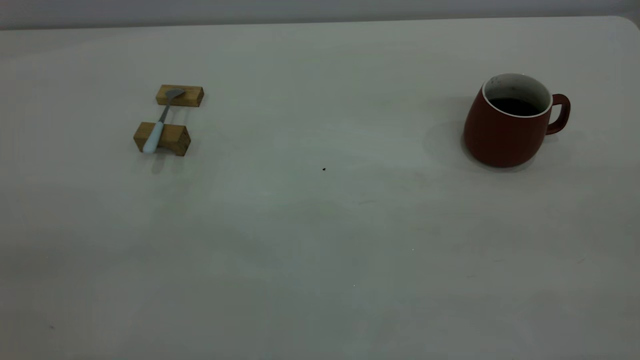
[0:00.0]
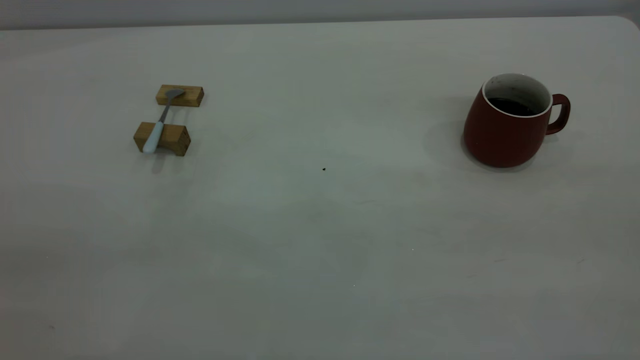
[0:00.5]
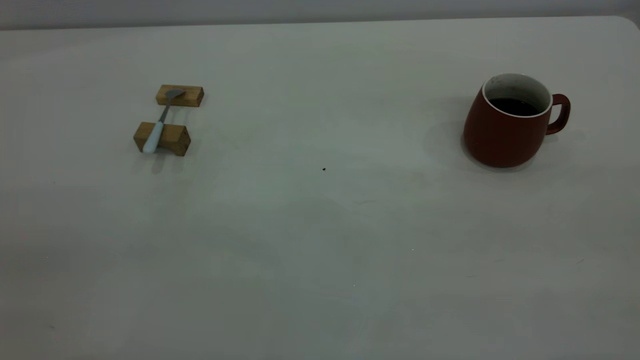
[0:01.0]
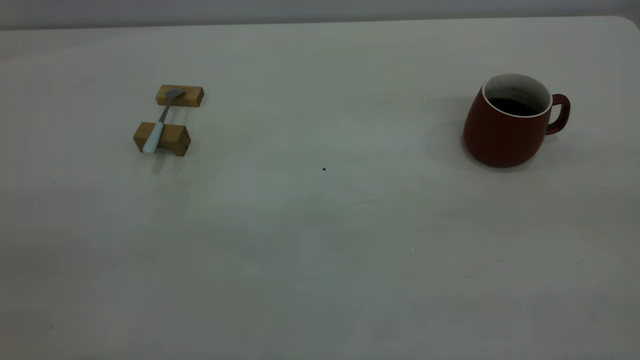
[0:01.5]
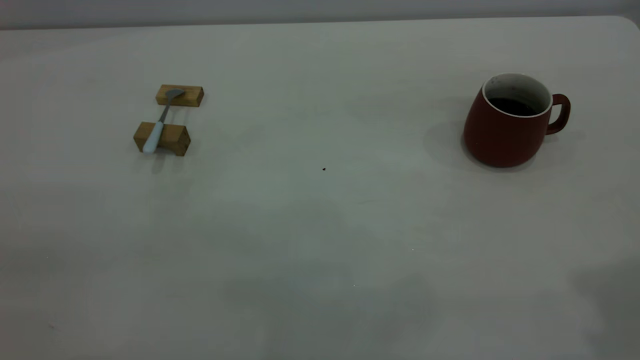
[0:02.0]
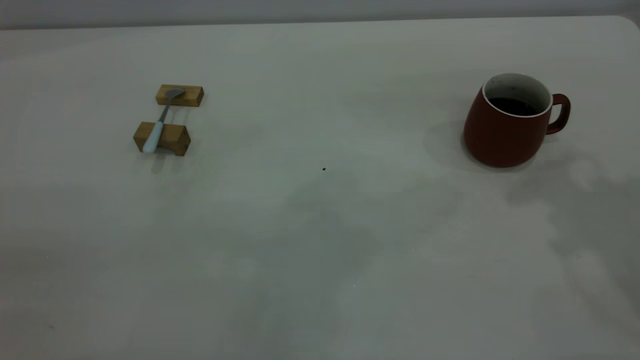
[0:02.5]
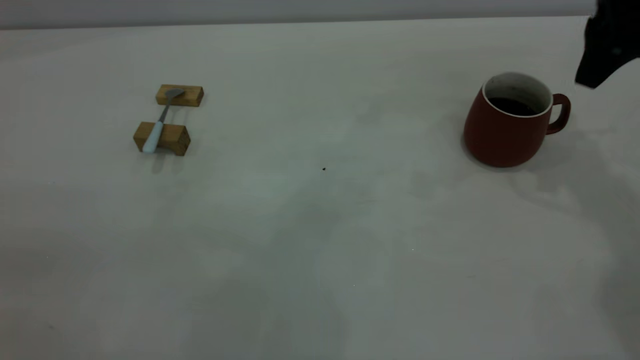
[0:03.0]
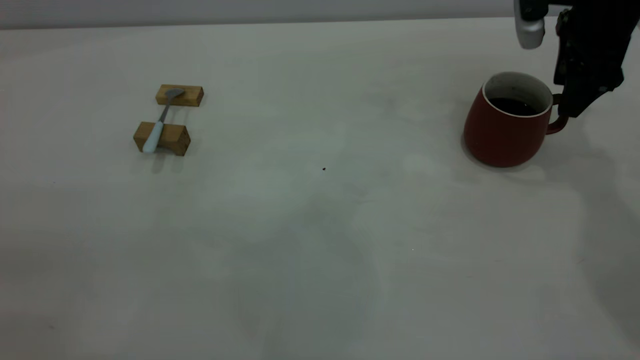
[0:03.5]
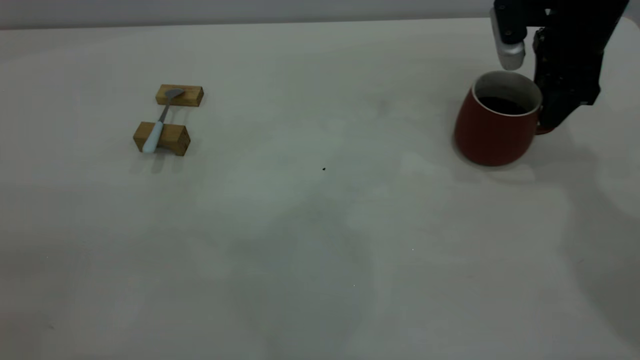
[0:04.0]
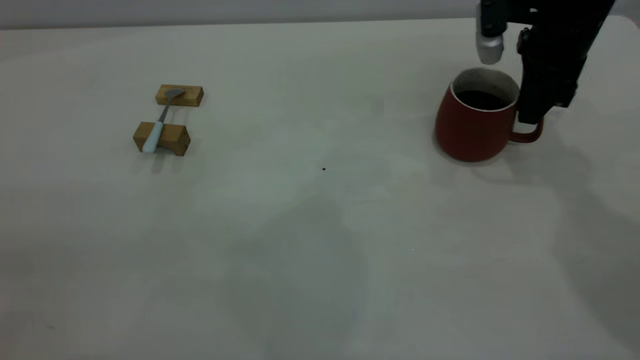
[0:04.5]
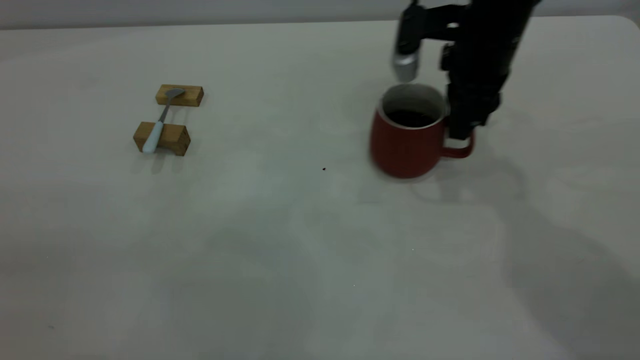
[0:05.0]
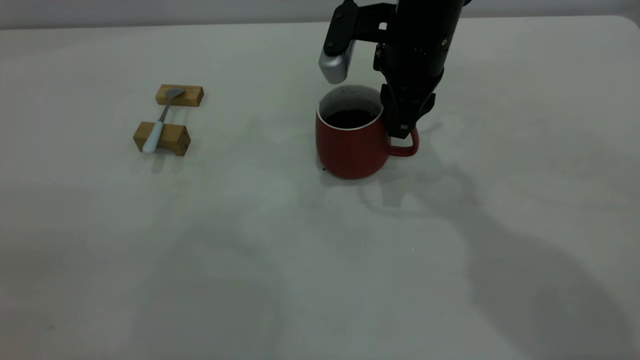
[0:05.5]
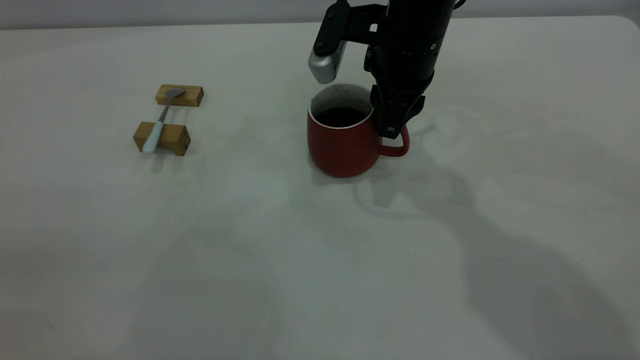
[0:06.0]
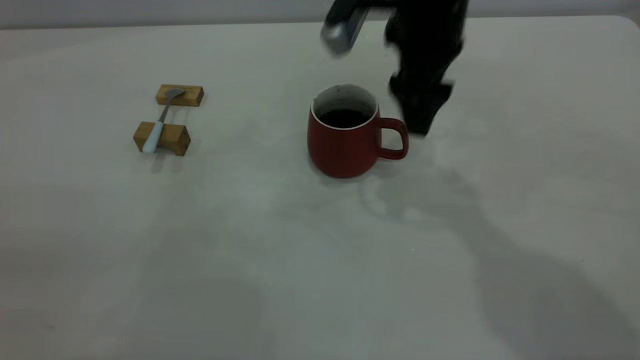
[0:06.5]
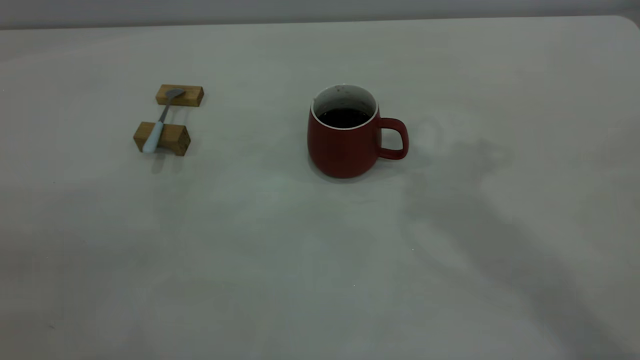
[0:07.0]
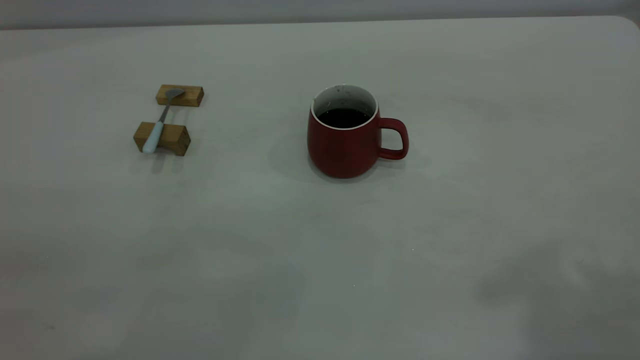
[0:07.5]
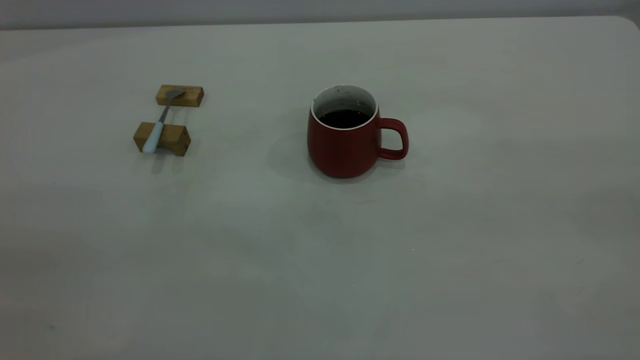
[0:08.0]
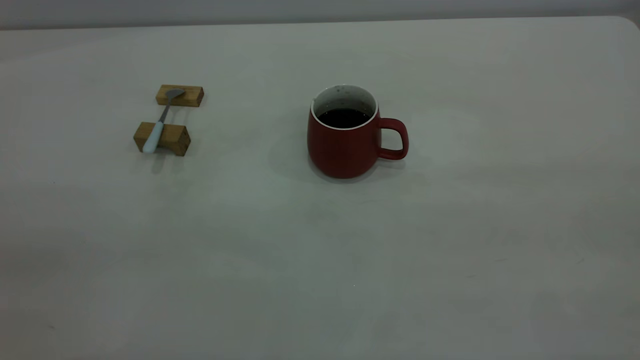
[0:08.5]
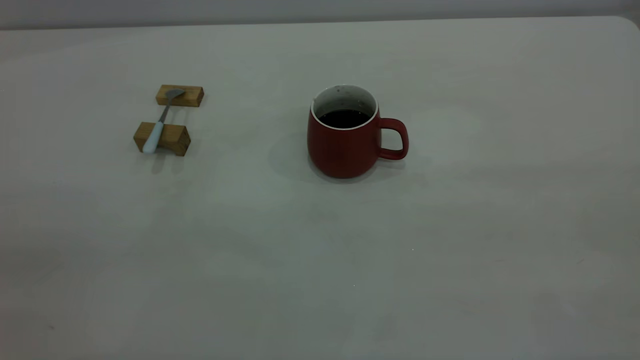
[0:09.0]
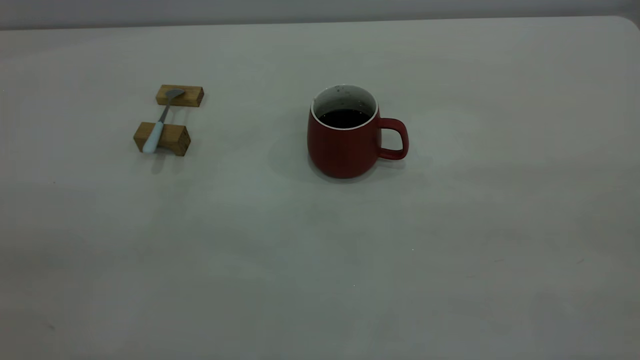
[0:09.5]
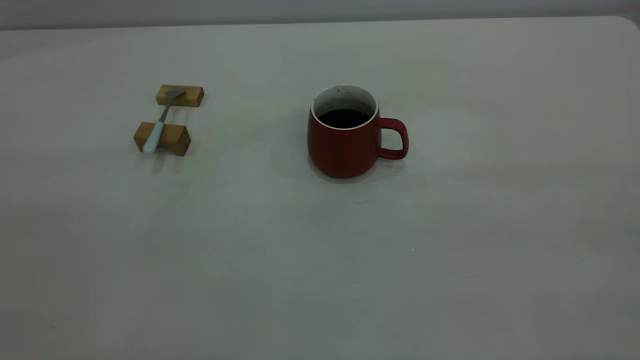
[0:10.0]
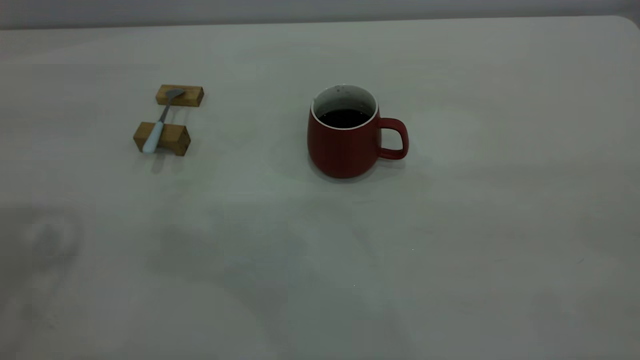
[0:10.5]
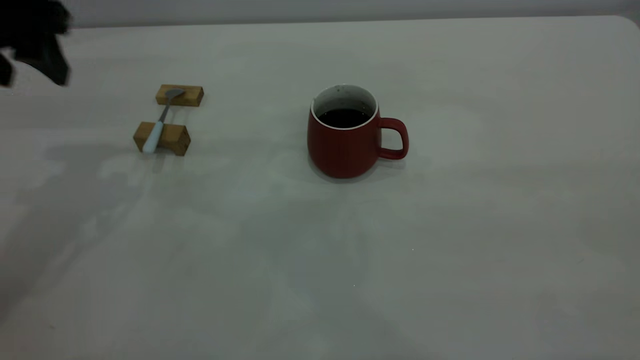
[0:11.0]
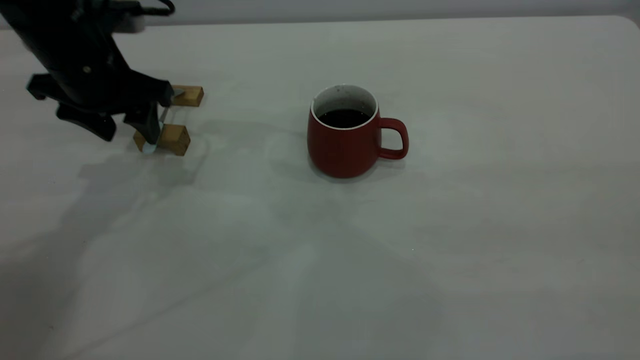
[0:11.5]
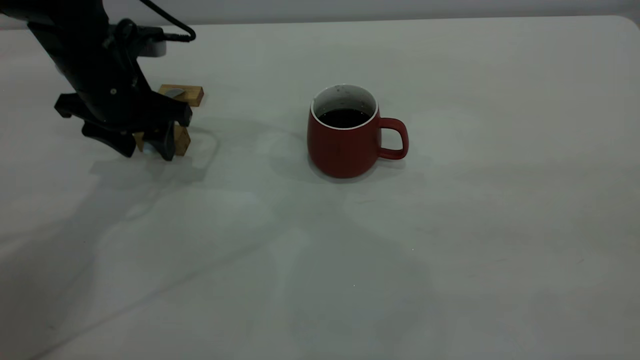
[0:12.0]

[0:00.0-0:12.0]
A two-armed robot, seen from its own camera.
Step, 0:00.0 to 0:06.5: Move the cup with coffee to the center of view.
0:02.0 to 0:04.0: The right gripper is displaced forward and downward by roughly 35 cm.
0:04.0 to 0:06.0: The right gripper travels to the left by some 20 cm, and closes its fingers.
0:06.0 to 0:08.0: The right gripper shifts about 50 cm backward, upward and to the right, and opens its fingers.
0:10.0 to 0:12.0: The left gripper shifts about 40 cm forward and downward.

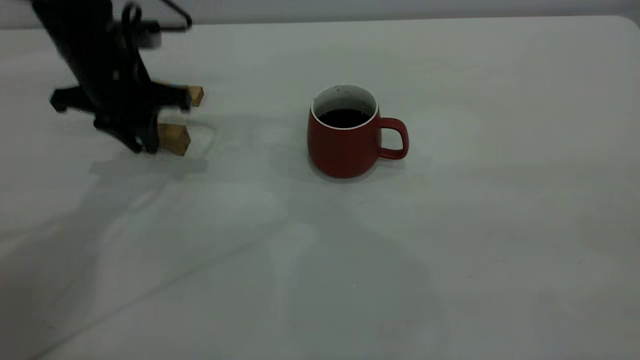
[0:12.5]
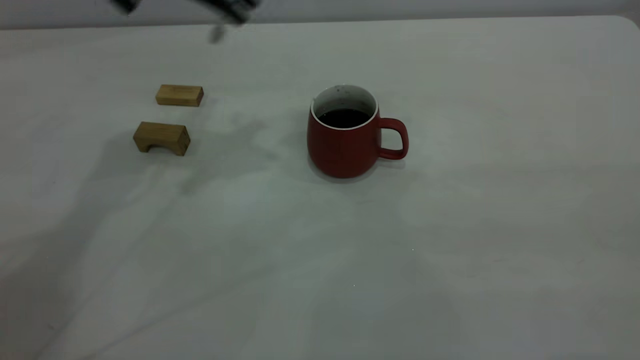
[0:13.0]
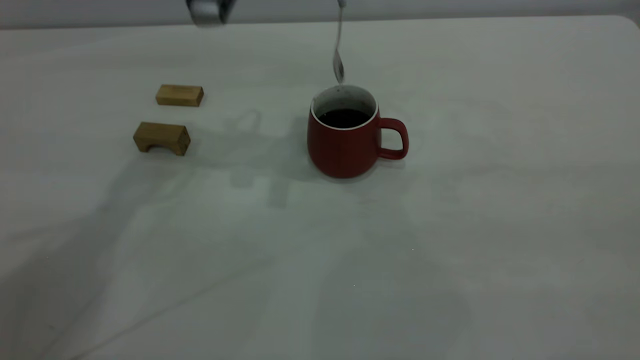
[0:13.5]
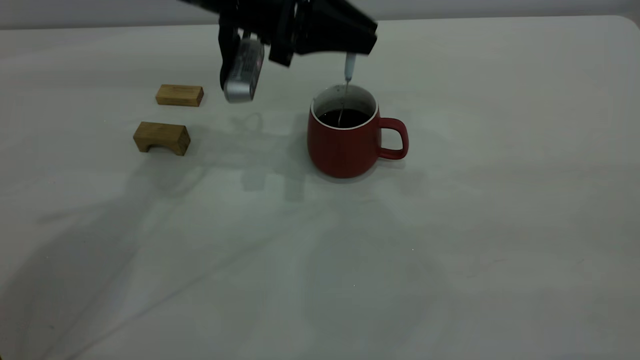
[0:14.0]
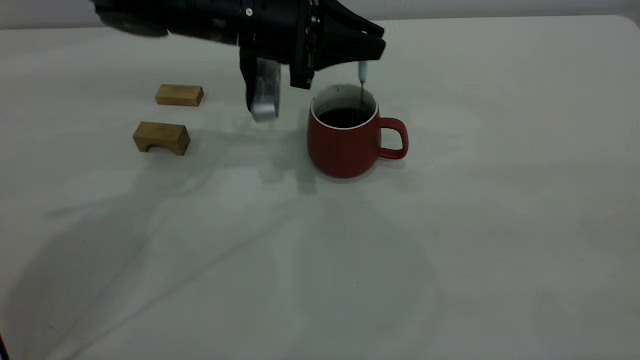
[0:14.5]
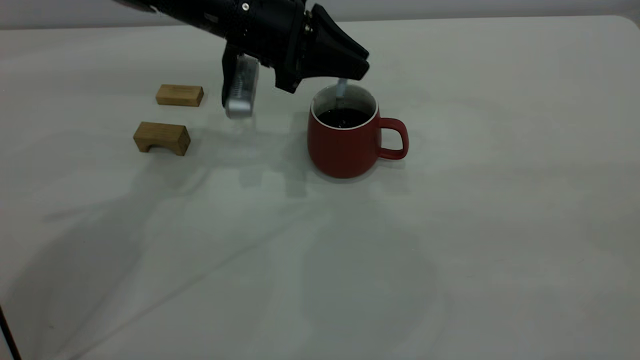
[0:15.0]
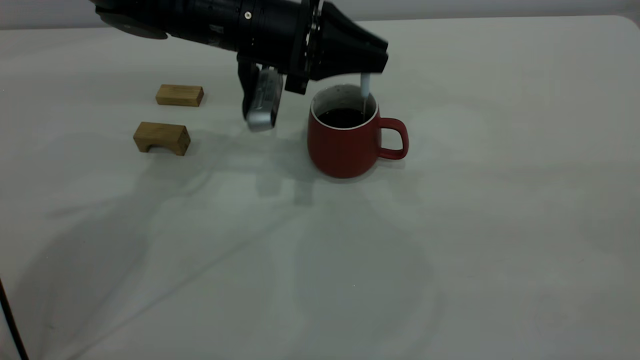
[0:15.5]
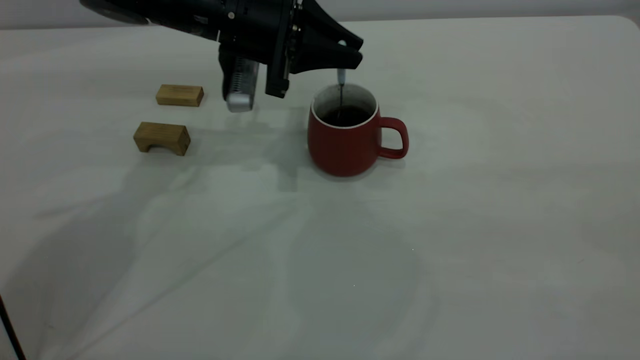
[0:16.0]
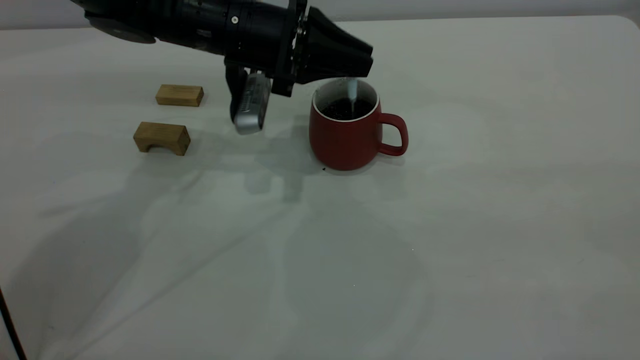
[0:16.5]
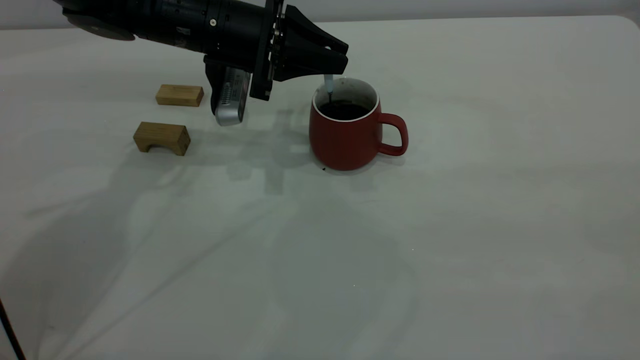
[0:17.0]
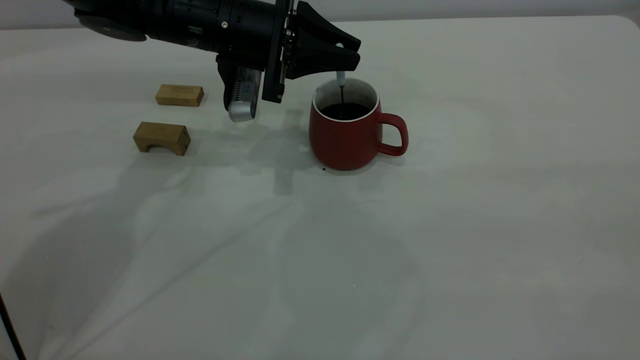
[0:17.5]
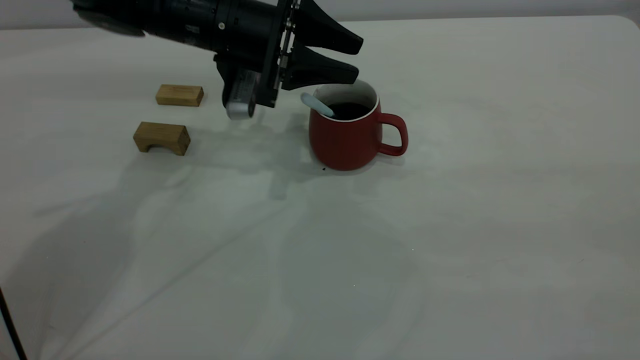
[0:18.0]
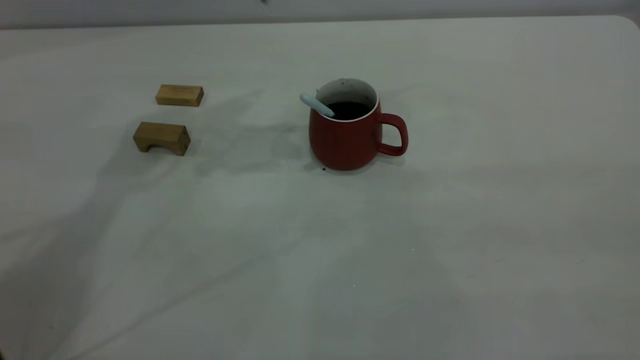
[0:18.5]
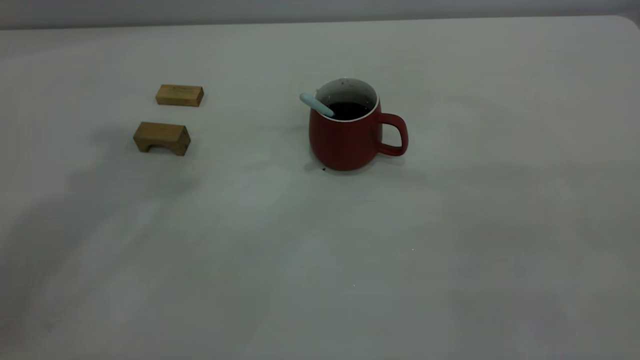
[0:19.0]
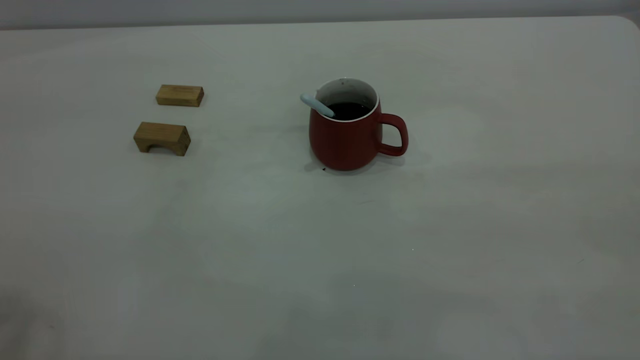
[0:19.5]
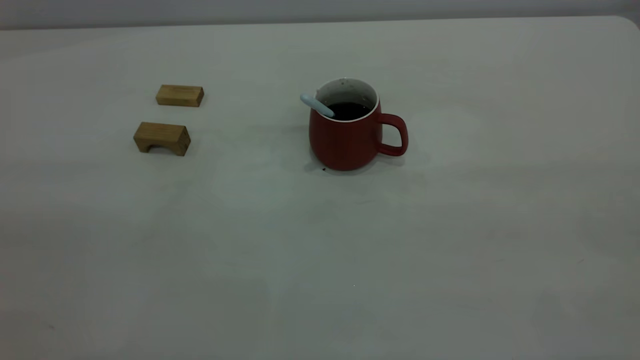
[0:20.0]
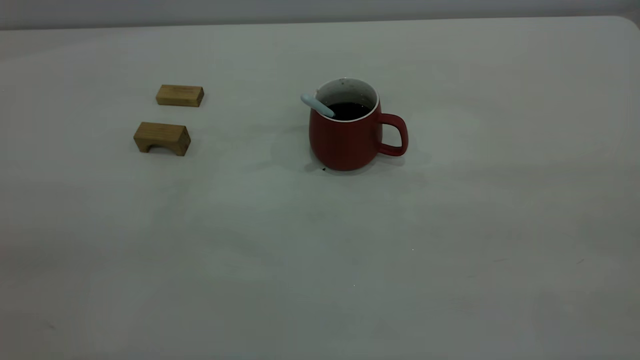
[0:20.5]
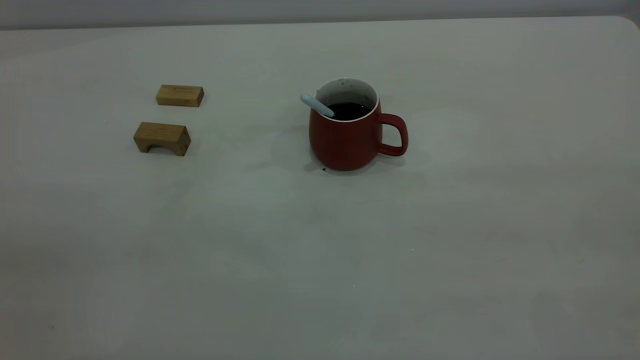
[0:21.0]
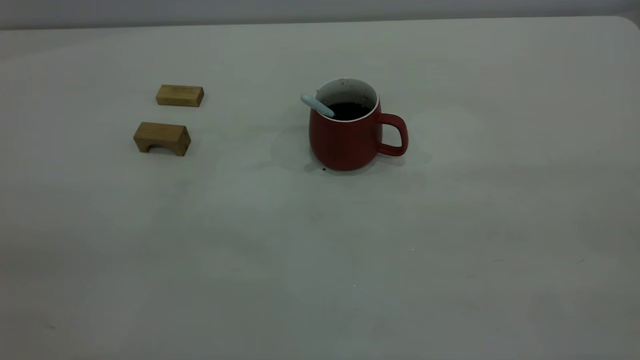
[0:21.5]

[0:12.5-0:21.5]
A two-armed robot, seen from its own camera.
Step, 0:13.0 to 0:18.0: Stir the coffee in the cup.
0:12.5 to 0:14.5: The left gripper is displaced to the right by some 15 cm, and reaches roughly 15 cm upward, then returns.
0:14.5 to 0:17.0: The grippers stay close to where they were, moving slightly.
0:17.0 to 0:19.5: The left gripper shifts about 50 cm upward, backward and to the left, and opens its fingers.
